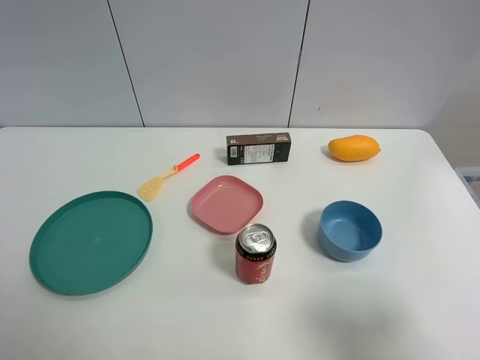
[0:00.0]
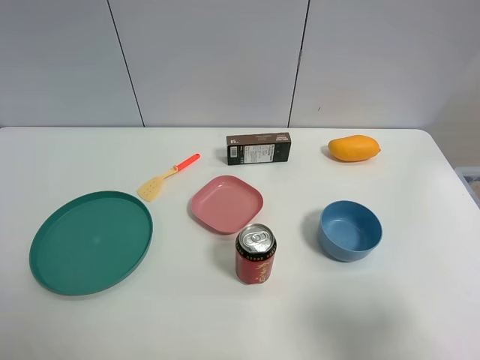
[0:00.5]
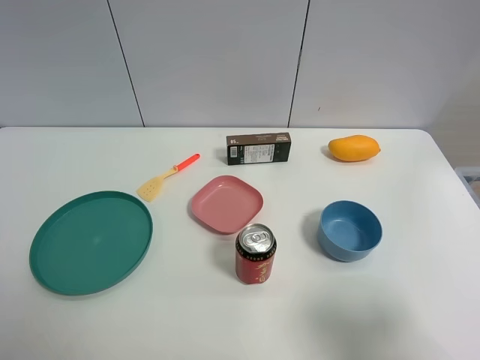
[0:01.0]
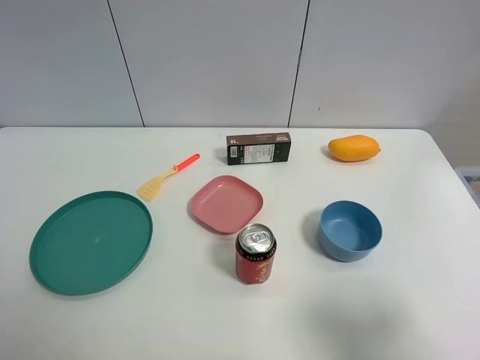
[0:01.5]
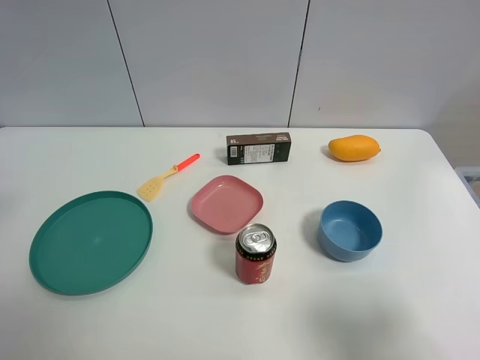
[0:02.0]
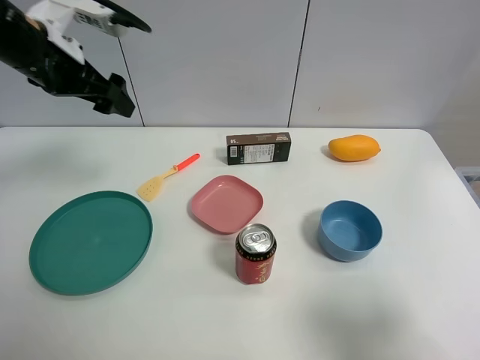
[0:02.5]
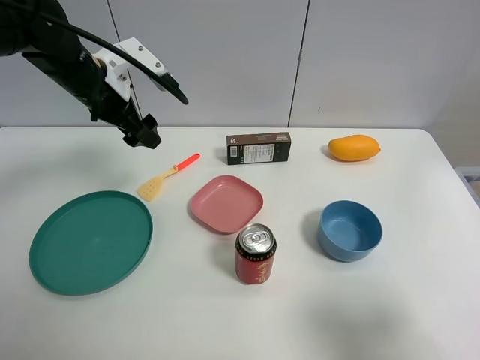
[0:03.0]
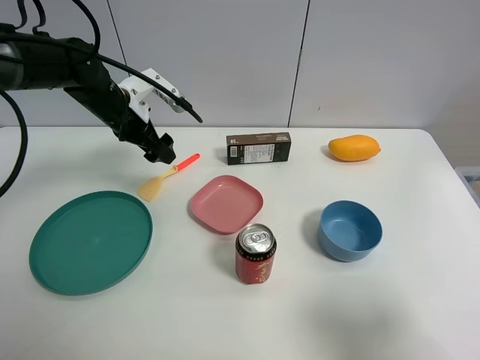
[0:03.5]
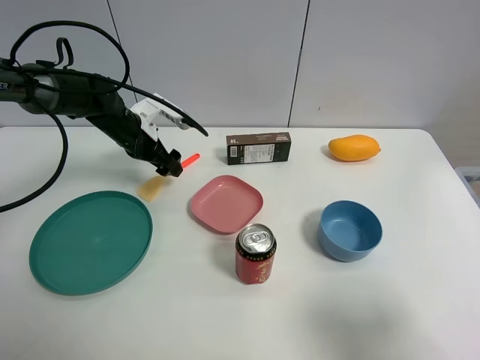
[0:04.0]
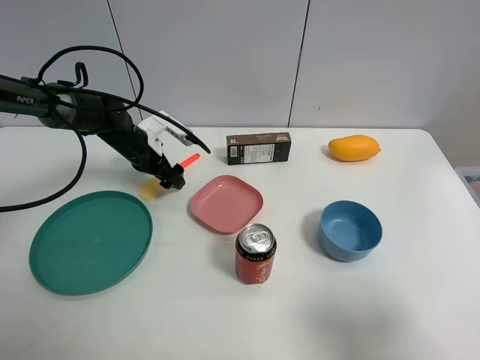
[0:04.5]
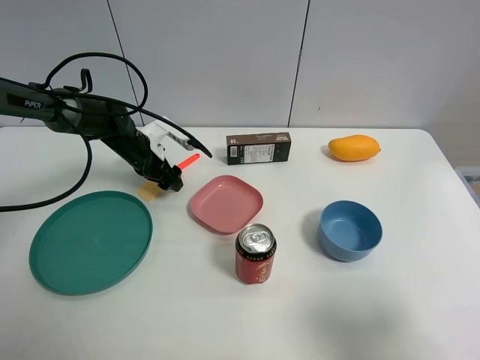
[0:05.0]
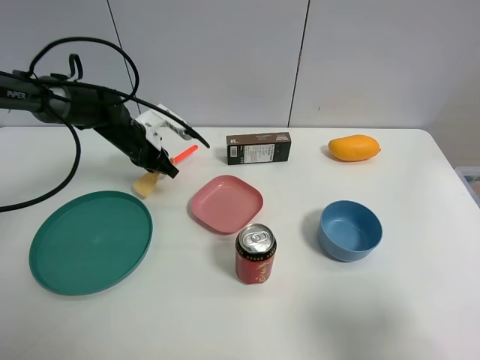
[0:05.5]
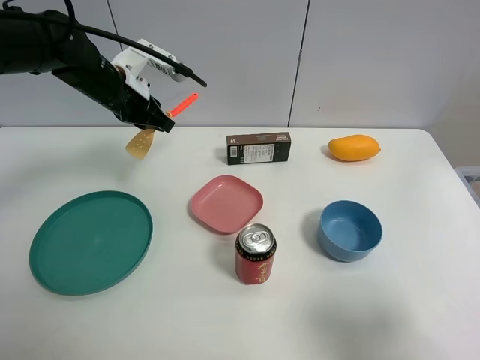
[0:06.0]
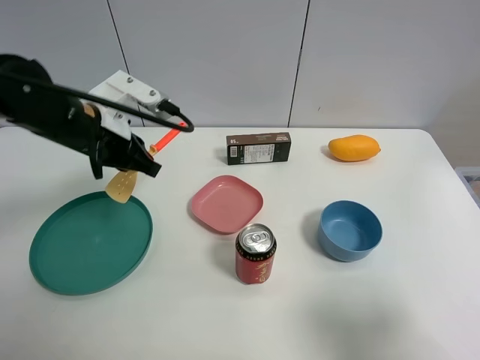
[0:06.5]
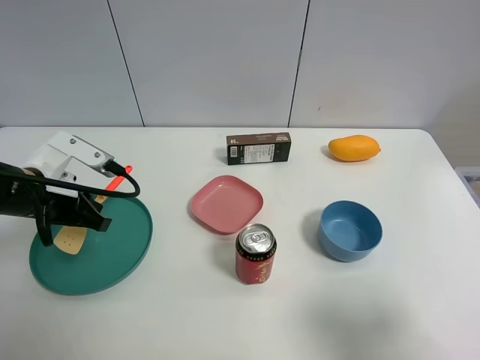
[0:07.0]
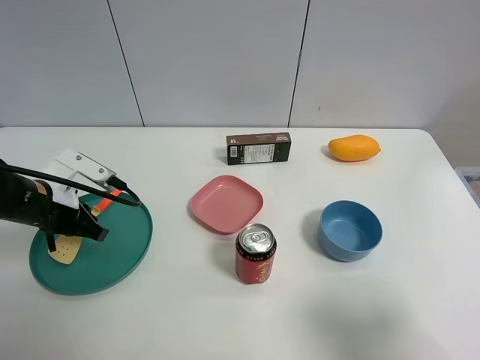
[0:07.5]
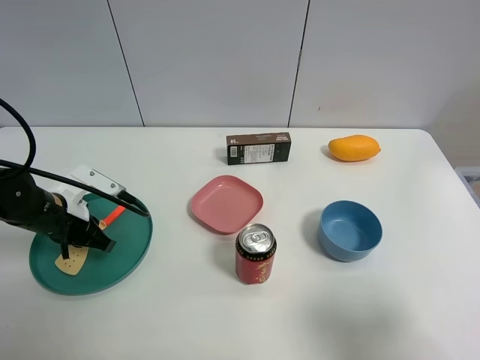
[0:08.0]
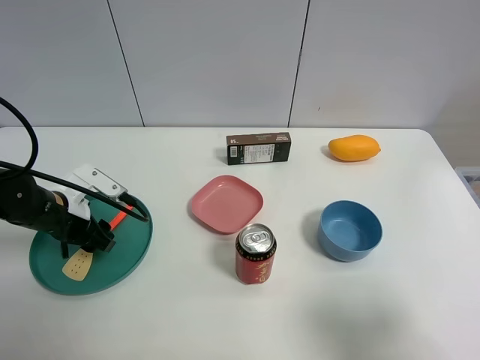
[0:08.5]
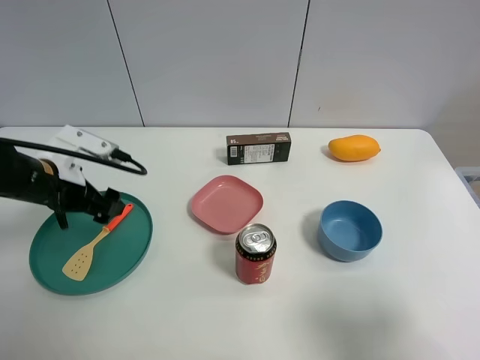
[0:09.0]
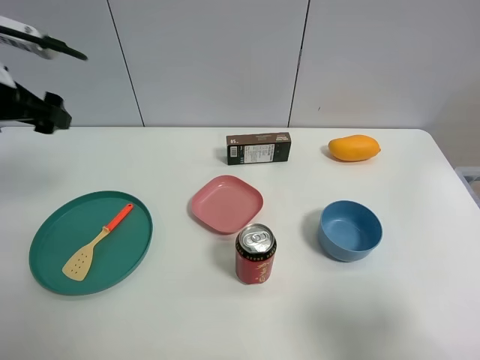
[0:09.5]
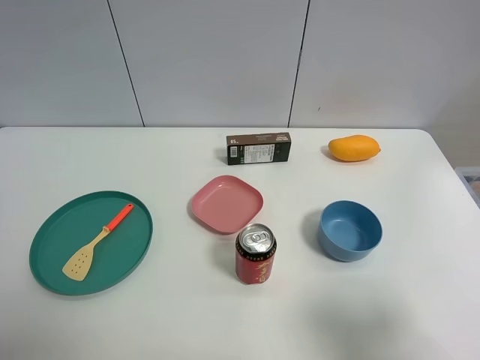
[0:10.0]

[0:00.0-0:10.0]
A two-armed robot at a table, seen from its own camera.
Task of the whole recording: the gripper move the object.
Step, 0:00.0 to 0:05.0: Grasp the cooking shovel with the left gripper.
Step, 0:05.5 to 0:08.5: Place the cooking shovel into the green plate with the left gripper.
0:02.0 to 0:04.0: The left gripper shifts some 35 cm forward, downward and to the right.
0:04.0 to 0:06.0: The left gripper shifts approximately 10 cm upward, and closes.
0:06.0 to 0:08.0: The left gripper travels backward, downward and to the left by roughly 20 cm.
0:08.0 to 0:10.0: The left gripper shifts approximately 30 cm upward, and opens its fingers.

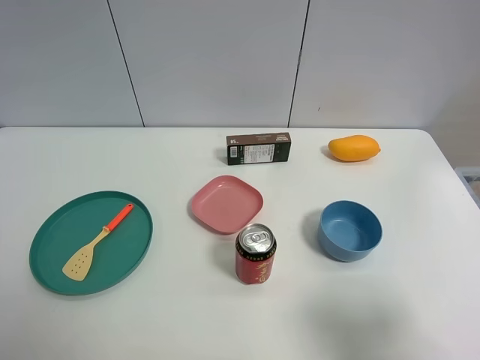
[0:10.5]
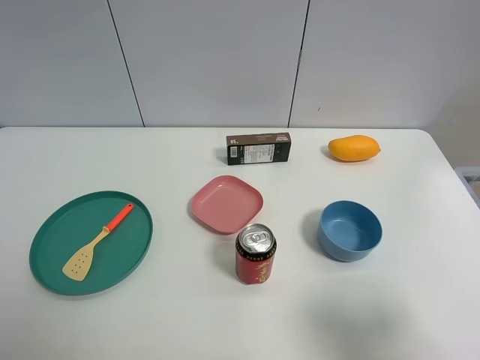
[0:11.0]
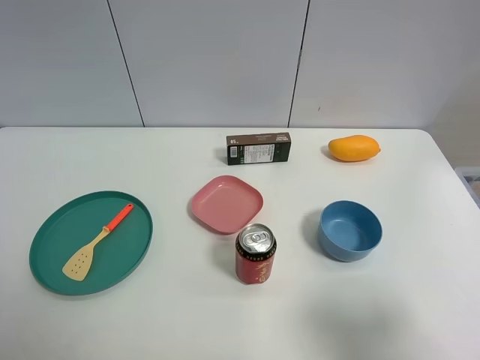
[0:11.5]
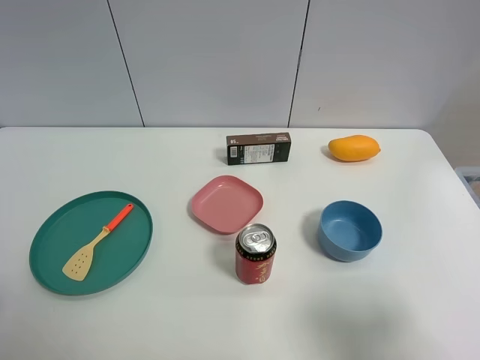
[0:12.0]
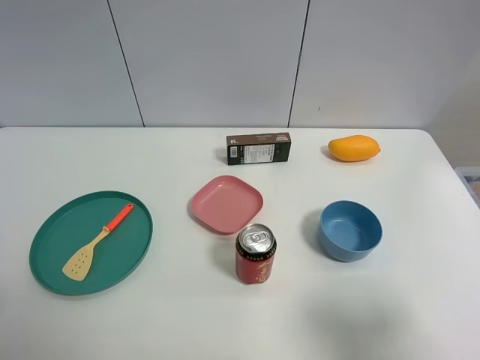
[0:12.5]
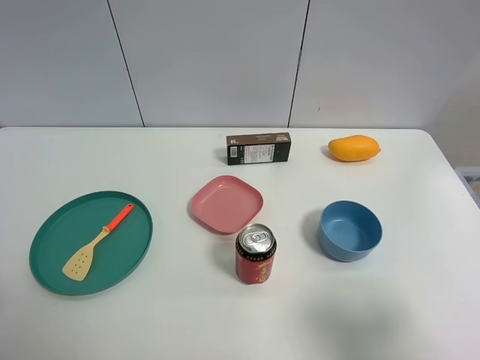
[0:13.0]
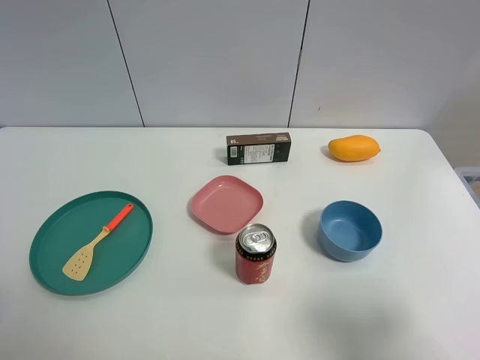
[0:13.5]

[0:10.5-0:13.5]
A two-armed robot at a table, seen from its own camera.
Task of the whole recording: the gripper move the object.
0:12.0 to 0:13.5: Neither gripper changes place.
